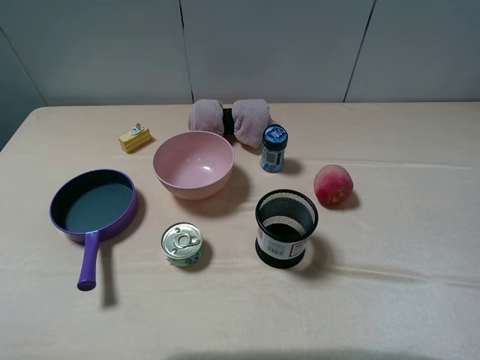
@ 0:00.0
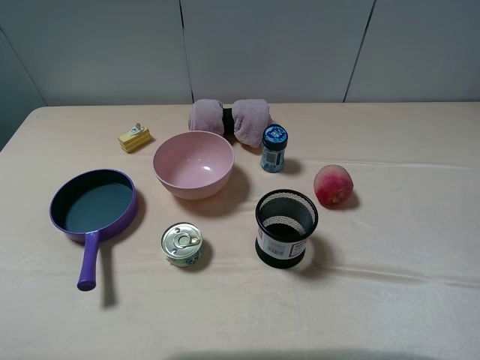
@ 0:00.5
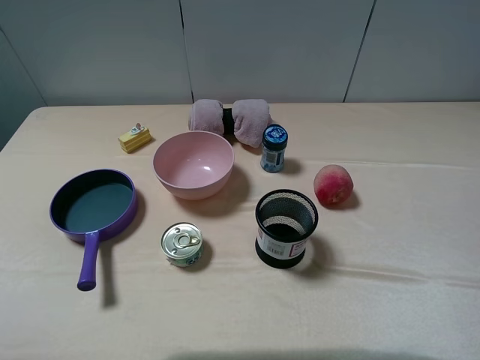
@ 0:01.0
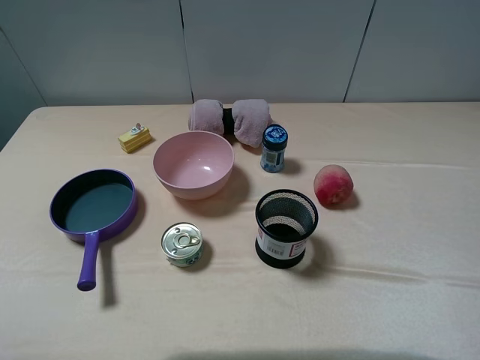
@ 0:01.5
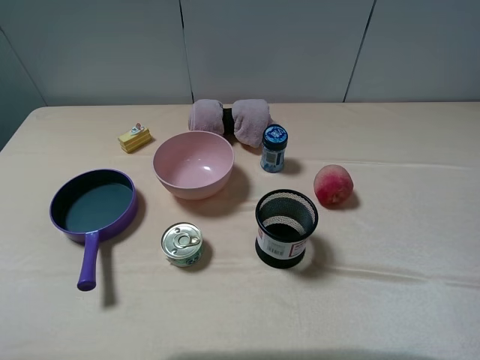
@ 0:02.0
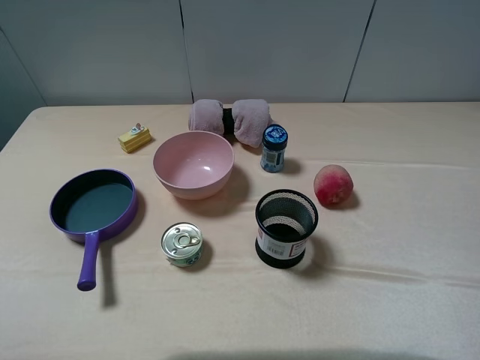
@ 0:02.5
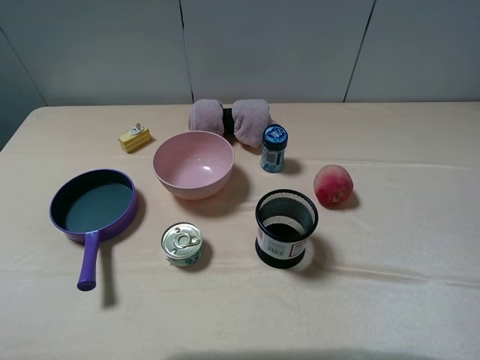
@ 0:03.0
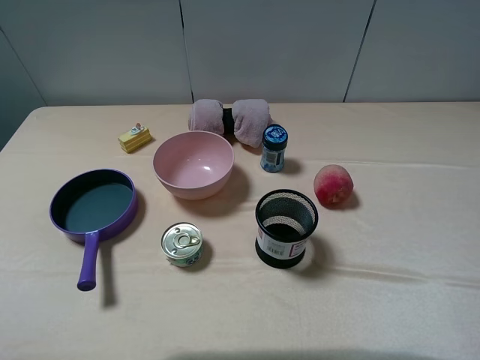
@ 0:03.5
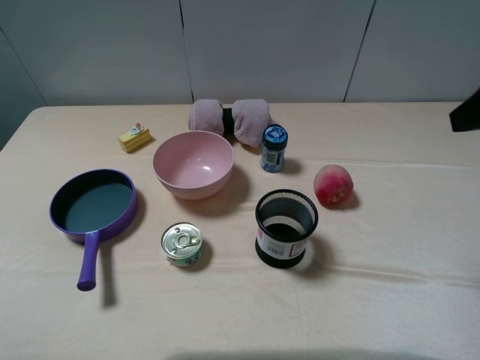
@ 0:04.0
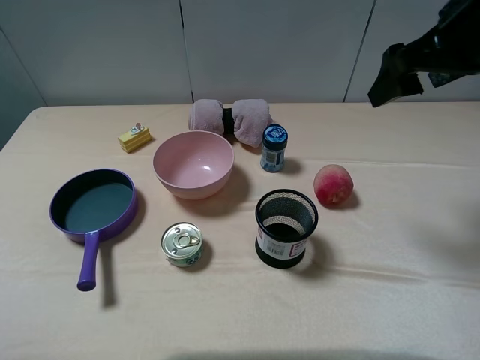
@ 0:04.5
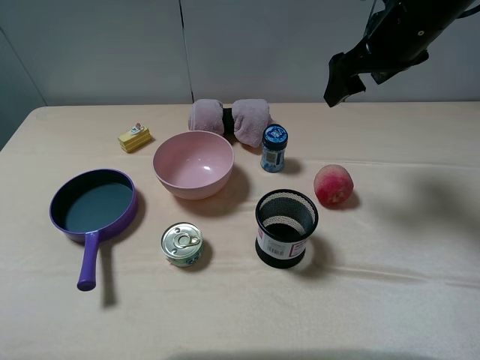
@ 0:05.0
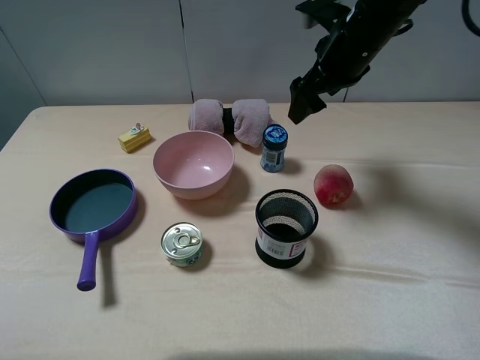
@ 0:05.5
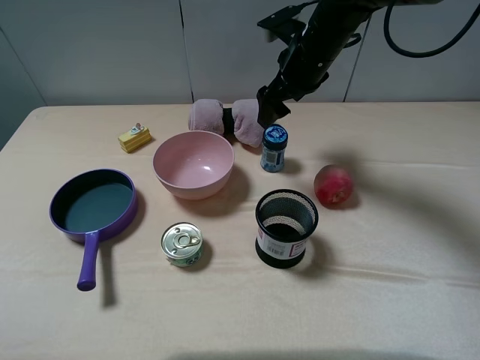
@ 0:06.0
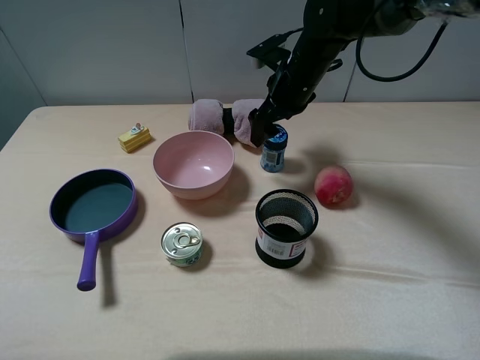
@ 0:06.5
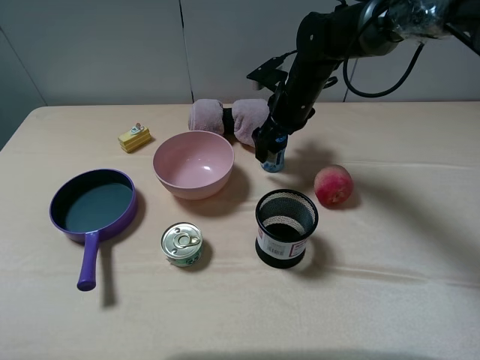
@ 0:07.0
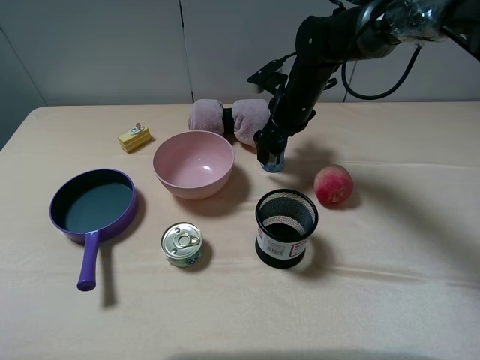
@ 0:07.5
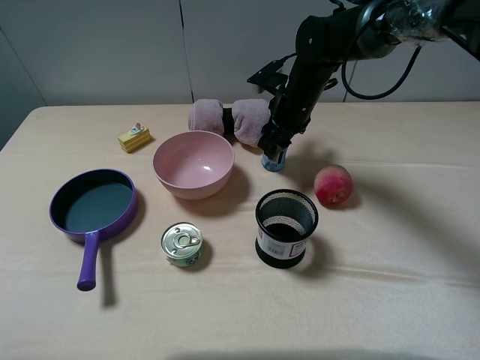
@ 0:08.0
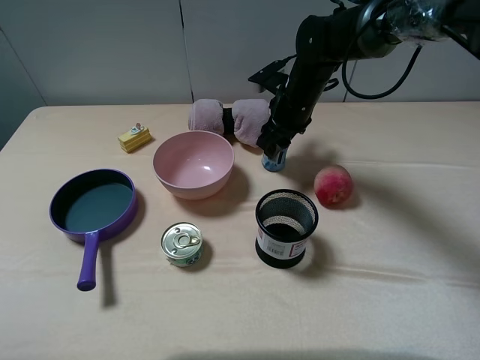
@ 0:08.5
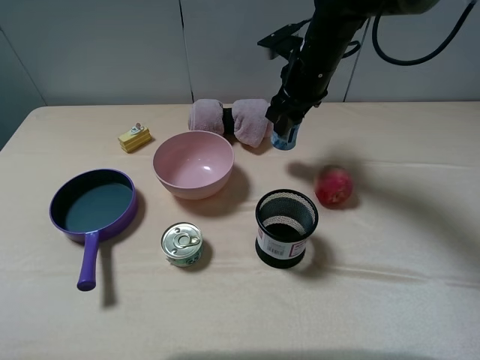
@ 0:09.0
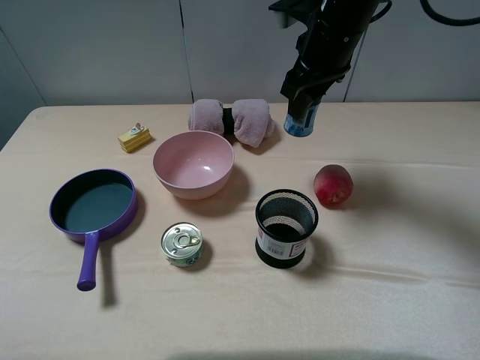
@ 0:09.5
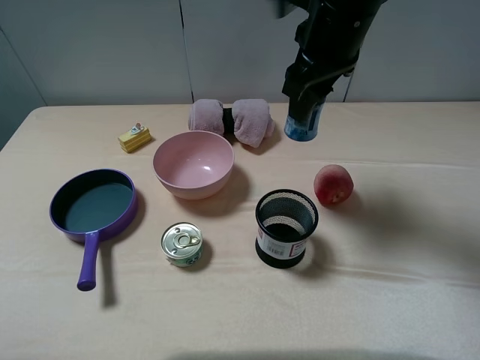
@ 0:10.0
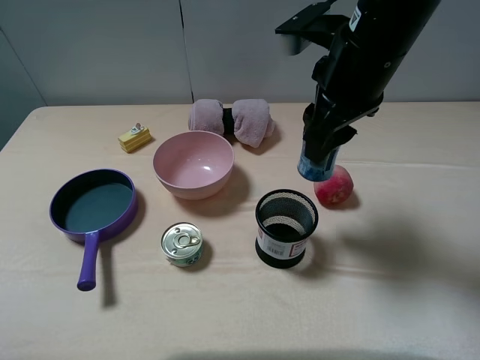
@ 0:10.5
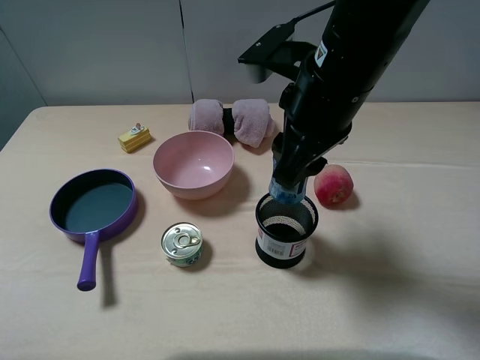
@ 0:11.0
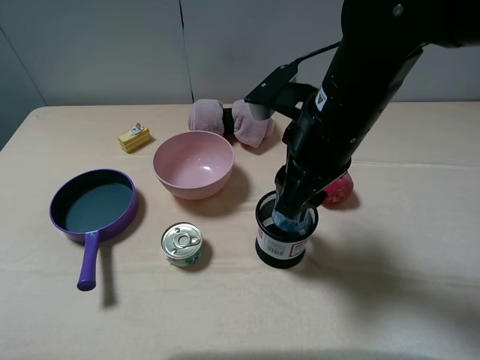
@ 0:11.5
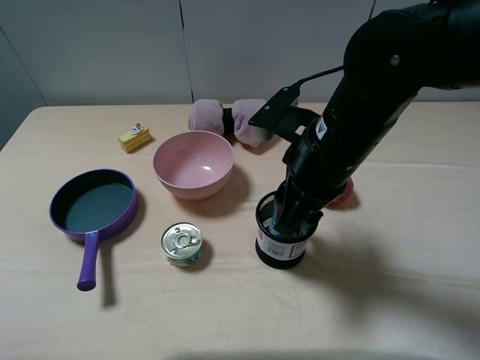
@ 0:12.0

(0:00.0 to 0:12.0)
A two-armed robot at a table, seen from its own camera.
Task of the whole recording: pick up an item with a gripper and place it in a random container on the table.
Step, 0:00.0 - 0:08.0: Grasp the round chewing gum with the right gripper.
0:00.0 - 0:02.0: The two grippers keep their place.
0:04.0 - 0:06.0: The right gripper moves forward, to the left and downward, roughly 30 cm.
0:06.0 - 0:08.0: The right gripper heads downward, covering some 10 cm, and closes.
0:08.0 - 0:10.0: The right gripper goes about 20 cm upward and backward.
0:10.0 - 0:12.0: The right gripper heads backward and downward, covering about 15 cm.

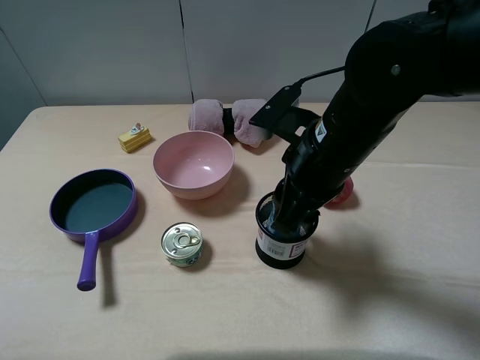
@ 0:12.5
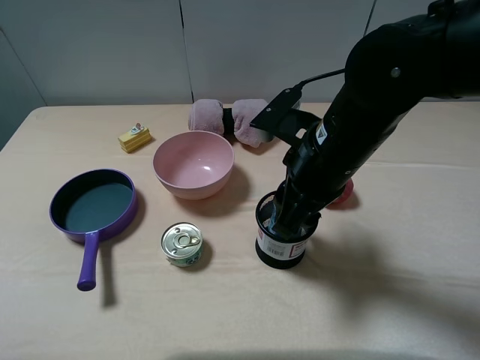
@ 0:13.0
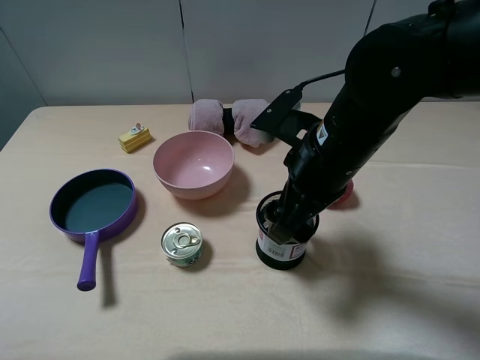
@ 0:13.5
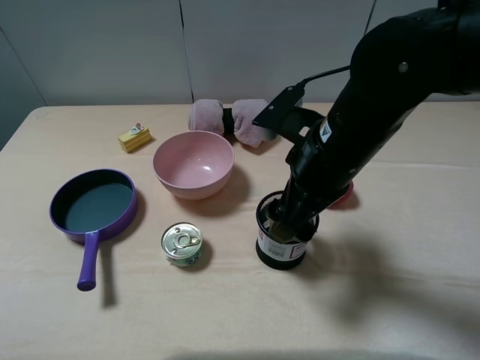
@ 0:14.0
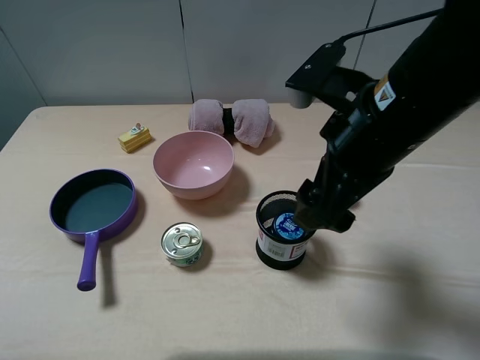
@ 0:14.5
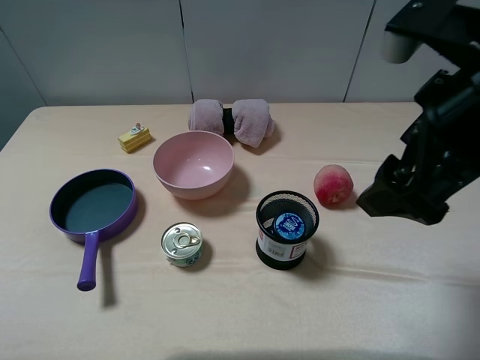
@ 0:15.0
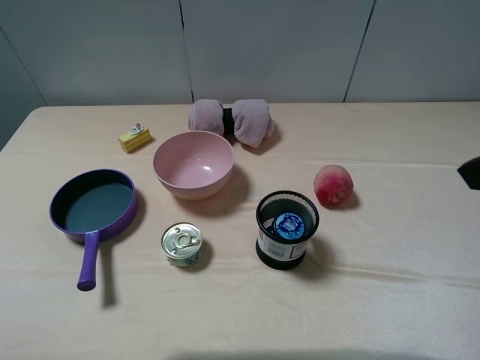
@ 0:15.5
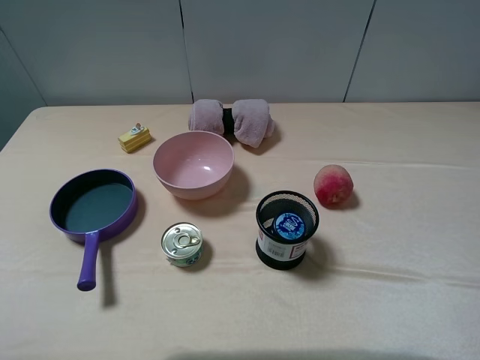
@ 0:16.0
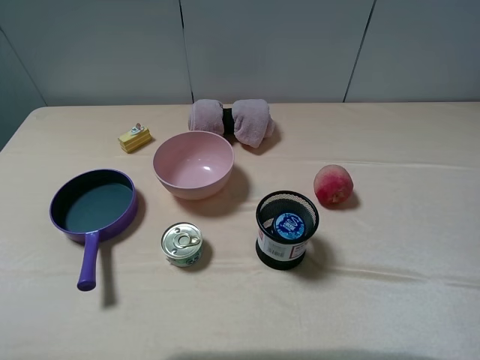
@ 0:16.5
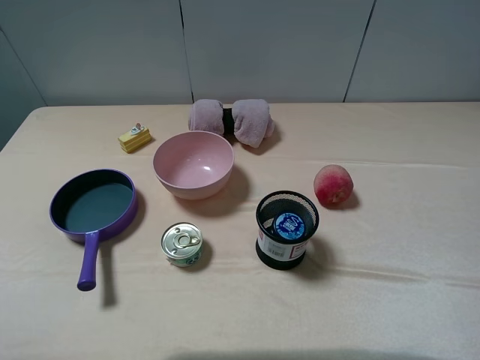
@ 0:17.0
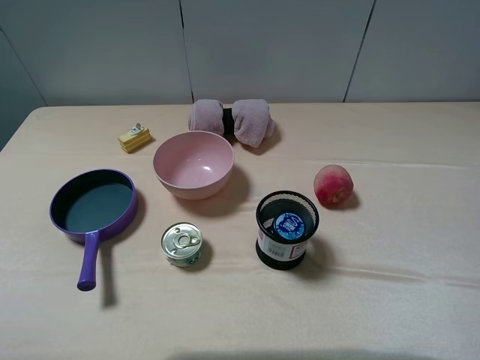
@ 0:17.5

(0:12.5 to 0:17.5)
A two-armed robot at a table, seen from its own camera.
Task of the whole recording: pick up an item with a gripper and place it in a random container on the table.
0:12.5 - 0:15.0: The right gripper travels upward, to the right and backward by approximately 15 cm, and opens.
0:15.0 - 0:17.5: The right gripper travels backward and to the right by approximately 20 cm.
